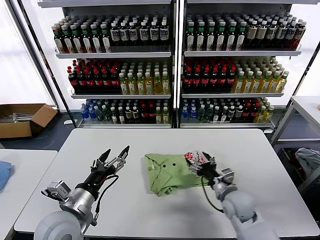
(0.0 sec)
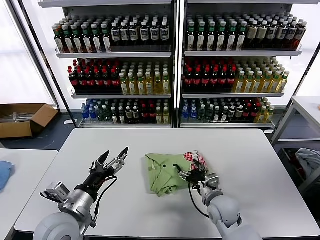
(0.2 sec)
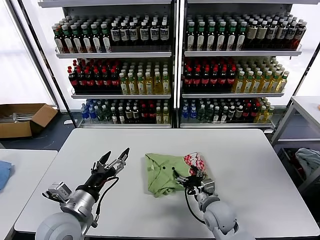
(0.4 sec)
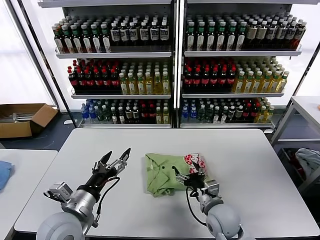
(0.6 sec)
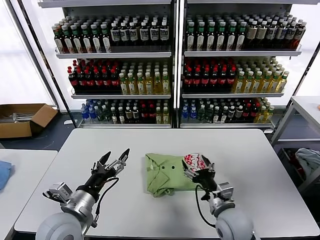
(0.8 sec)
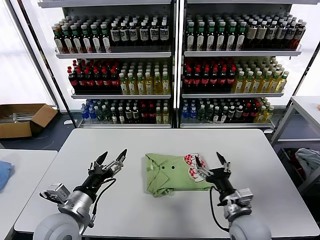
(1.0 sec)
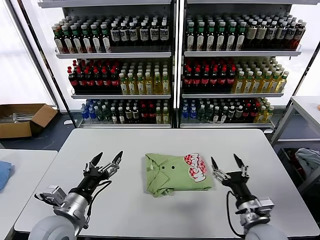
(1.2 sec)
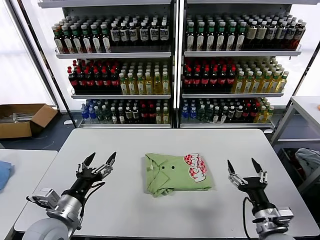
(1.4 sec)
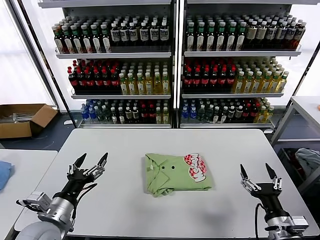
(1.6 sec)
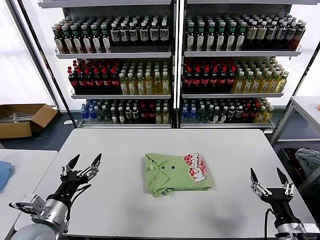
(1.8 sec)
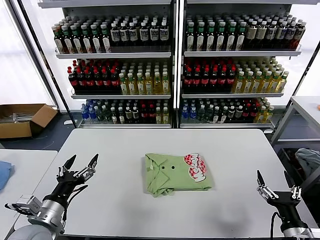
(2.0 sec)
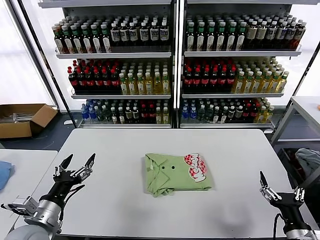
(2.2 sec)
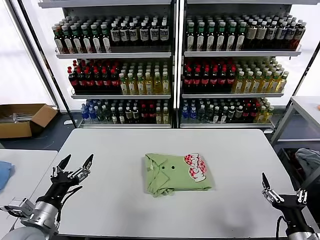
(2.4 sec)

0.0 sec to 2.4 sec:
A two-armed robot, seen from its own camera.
Task of the whole recording: fold and organize the clothes.
0.0 sec to 1.2 sec: The right gripper heads backward, covering about 10 cm.
1.2 sec to 2.4 sec: The right gripper travels to the right and backward by some 15 cm; the left gripper is displaced to the left by approximately 5 cm.

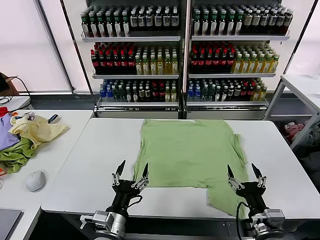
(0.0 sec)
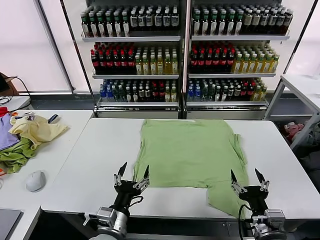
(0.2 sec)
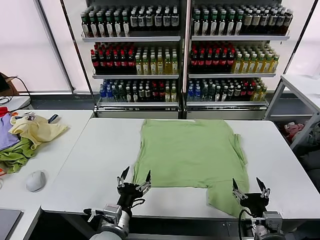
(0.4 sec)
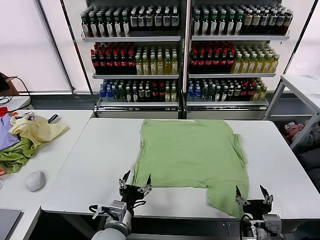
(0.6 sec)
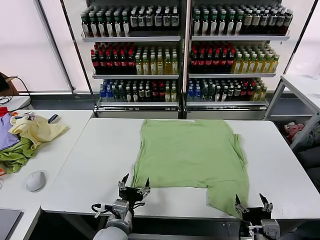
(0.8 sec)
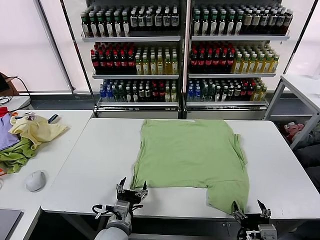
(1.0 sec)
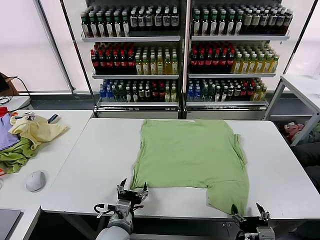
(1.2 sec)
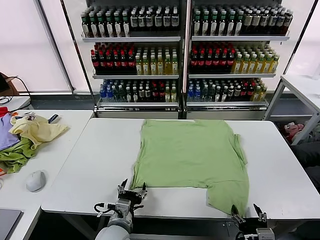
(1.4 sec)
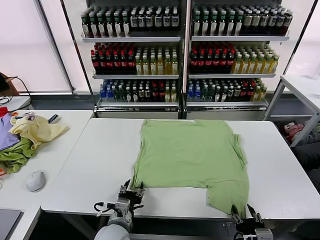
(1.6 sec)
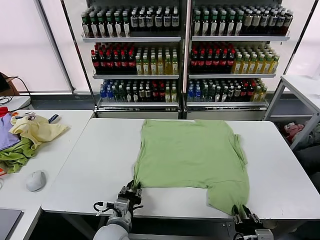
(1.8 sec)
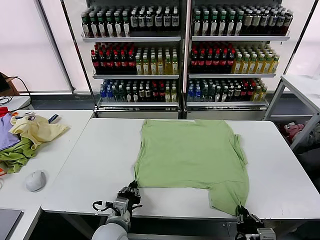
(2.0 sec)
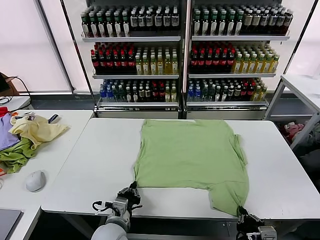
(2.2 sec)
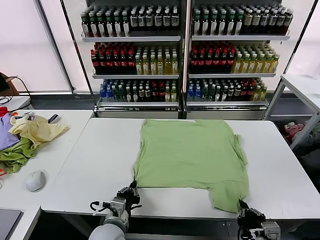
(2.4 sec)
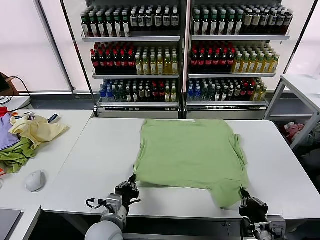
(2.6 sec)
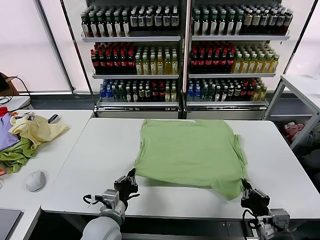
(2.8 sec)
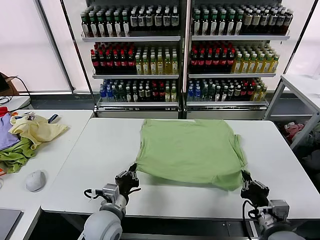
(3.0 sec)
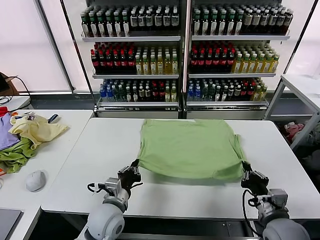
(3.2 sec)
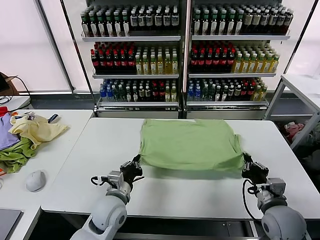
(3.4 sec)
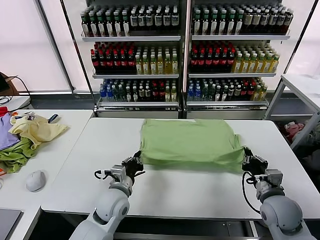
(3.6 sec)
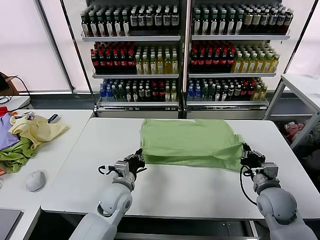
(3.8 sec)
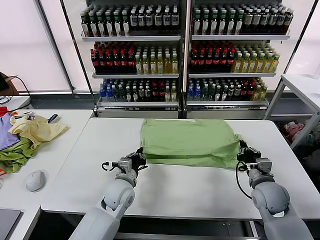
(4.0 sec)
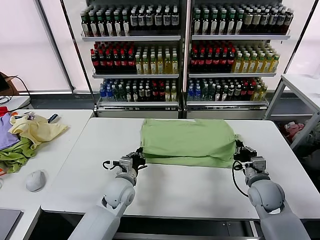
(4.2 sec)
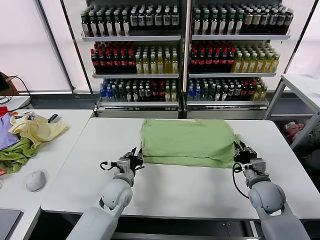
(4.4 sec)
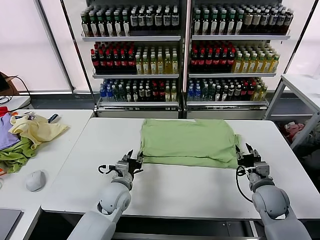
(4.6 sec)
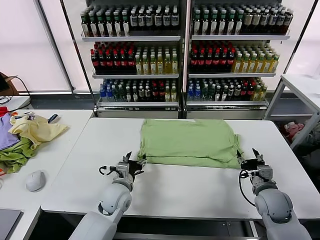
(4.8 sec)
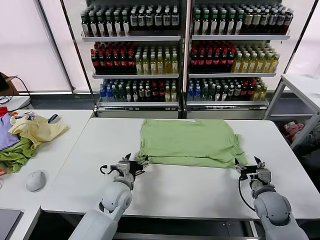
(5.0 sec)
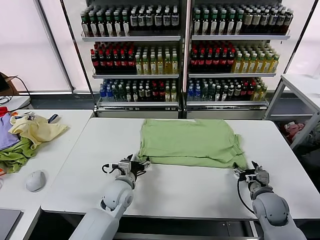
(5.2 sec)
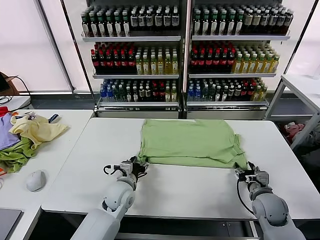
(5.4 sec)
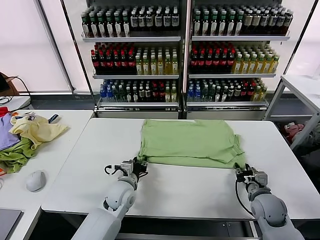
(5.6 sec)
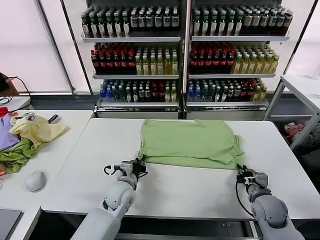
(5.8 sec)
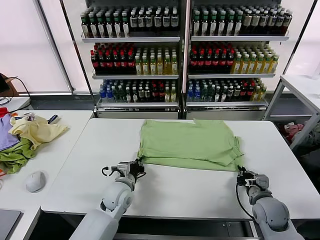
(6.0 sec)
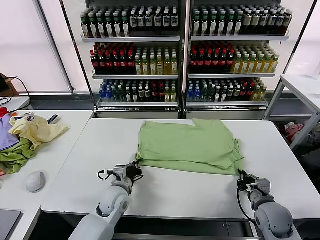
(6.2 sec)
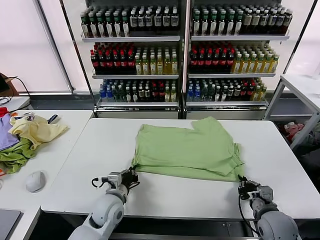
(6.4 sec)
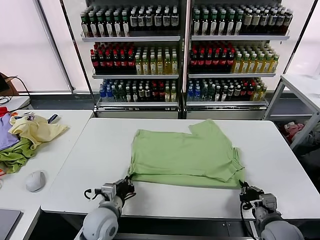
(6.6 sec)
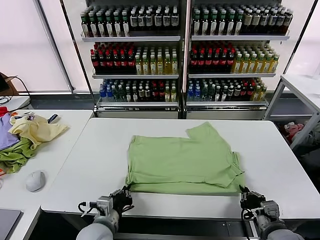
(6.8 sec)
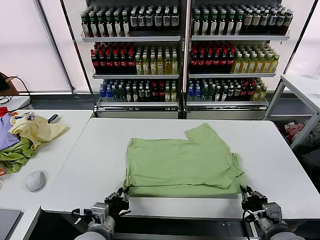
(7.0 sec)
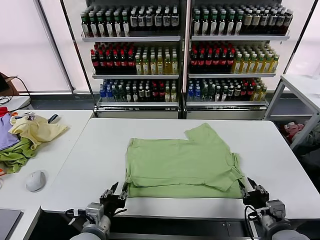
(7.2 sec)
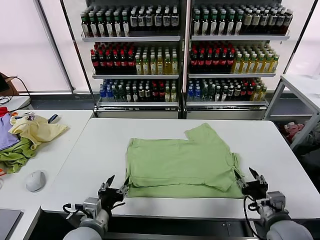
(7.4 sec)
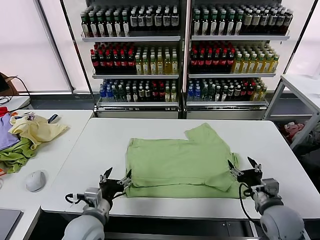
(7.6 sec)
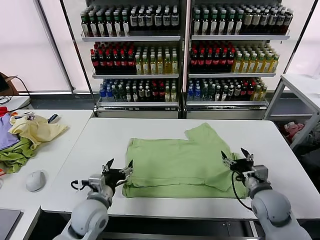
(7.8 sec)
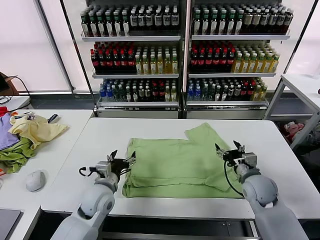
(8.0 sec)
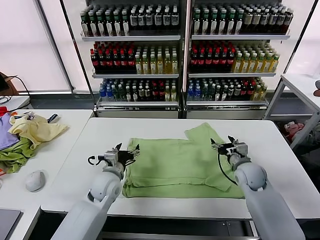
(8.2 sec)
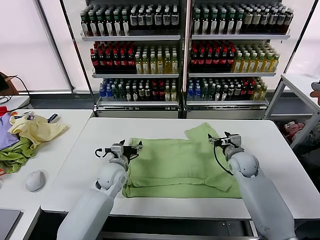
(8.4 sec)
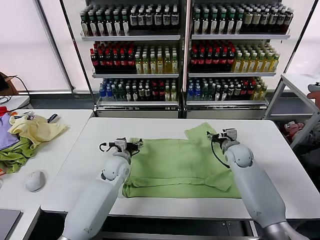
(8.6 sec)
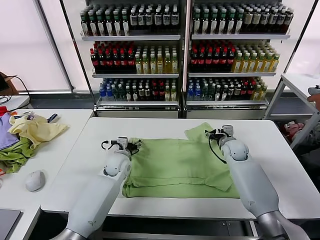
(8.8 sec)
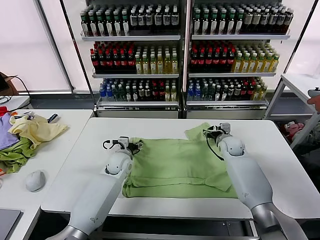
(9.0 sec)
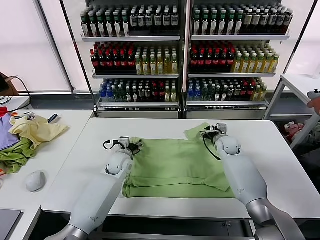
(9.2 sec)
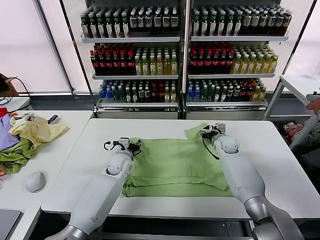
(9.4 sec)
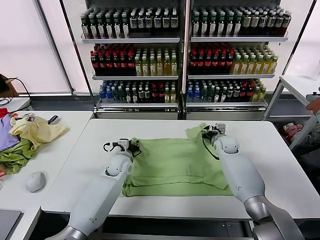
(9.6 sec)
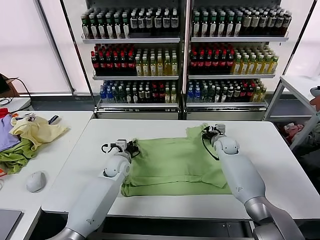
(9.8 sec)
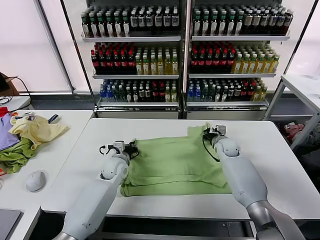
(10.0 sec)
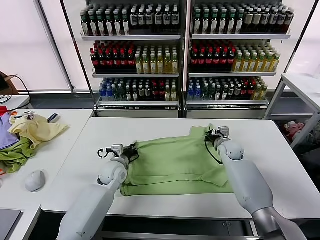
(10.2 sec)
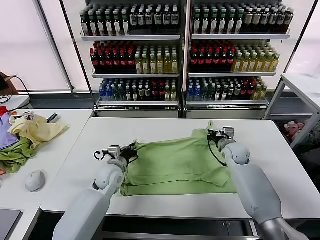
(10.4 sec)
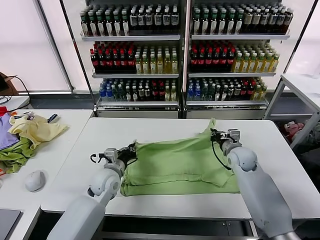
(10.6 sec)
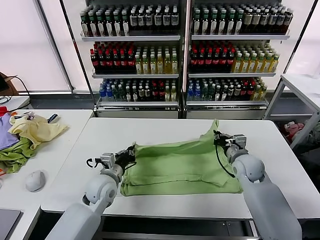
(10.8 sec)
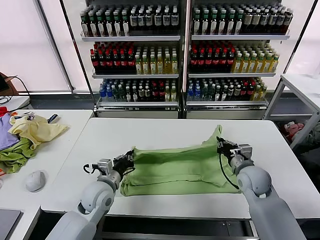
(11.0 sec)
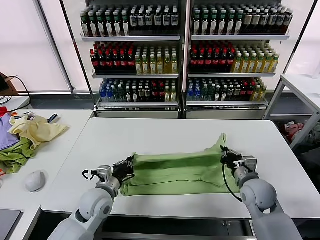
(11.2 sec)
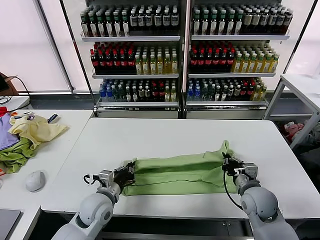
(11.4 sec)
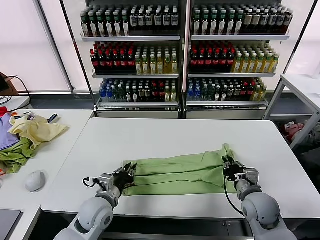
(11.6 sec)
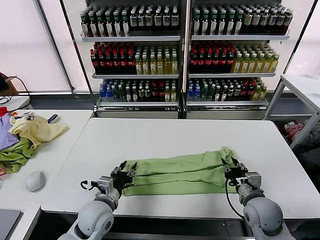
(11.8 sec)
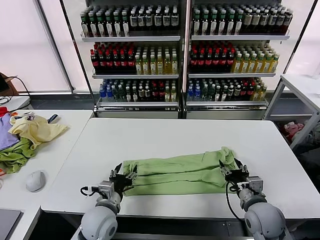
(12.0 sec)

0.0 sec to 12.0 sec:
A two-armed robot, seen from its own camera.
Task of the whole recording: fold and organize the clothes.
Step, 0.0 sec to 2.0 sec: use both grippers simultaneously to clamp the lower edge of the clothing fabric.
Step, 2.2 sec to 4.4 sec: use both grippers to drag the lower edge of the fabric forward and fold it over the upper edge.
Step, 4.6 sec to 7.0 sec: Drag the clothes downward with both gripper.
Step, 7.2 sec to 10.0 sec: use both grippers simultaneously to clamp the upper edge of the clothing fabric.
Step, 10.4 sec to 11.6 sec: use both grippers to drag the upper edge of the fabric backward and fold it over the lower edge.
1.6 sec to 3.0 sec: The right gripper goes some 10 cm forward and upward. The left gripper shifts by about 5 cm, and closes.
3.0 sec to 4.4 sec: The two grippers go some 10 cm forward. The right gripper opens. The left gripper opens its fingers.
4.4 sec to 6.0 sec: The left gripper opens and closes again. The right gripper changes place by about 5 cm, and closes.
6.0 sec to 7.6 sec: The left gripper is displaced backward and upward by some 15 cm, and opens its fingers; the right gripper travels upward by some 5 cm, reaches some 10 cm backward, then returns, and opens its fingers.
7.6 sec to 9.0 sec: Both grippers move forward, roughly 25 cm.
9.0 sec to 10.4 sec: Both grippers travel together backward, about 5 cm. The left gripper closes. The right gripper closes its fingers.
10.4 sec to 12.0 sec: Both grippers move backward, roughly 20 cm. The left gripper opens its fingers. The right gripper opens up.

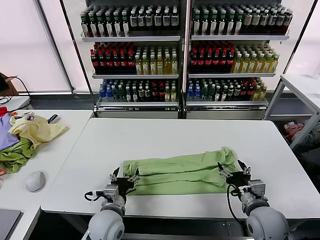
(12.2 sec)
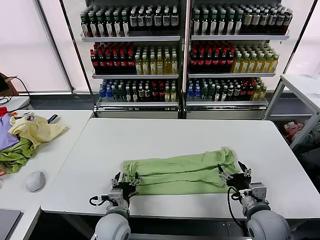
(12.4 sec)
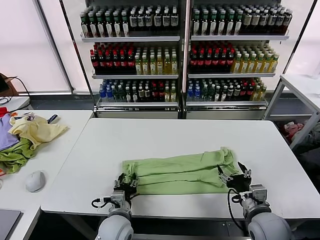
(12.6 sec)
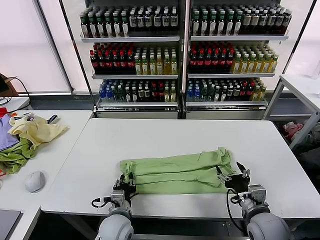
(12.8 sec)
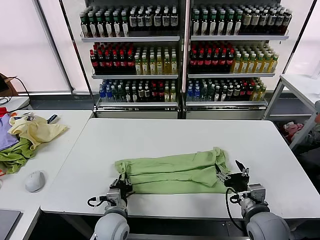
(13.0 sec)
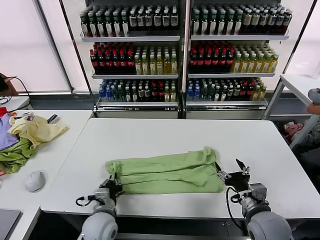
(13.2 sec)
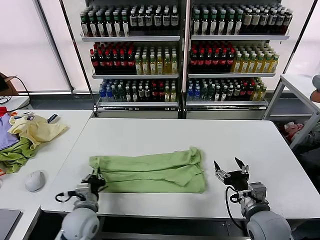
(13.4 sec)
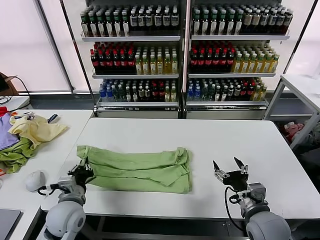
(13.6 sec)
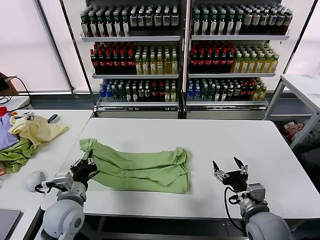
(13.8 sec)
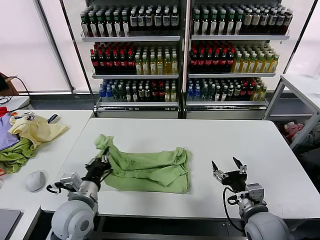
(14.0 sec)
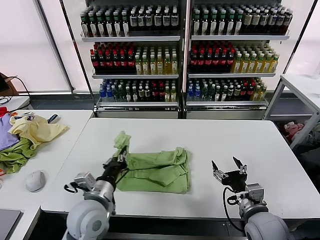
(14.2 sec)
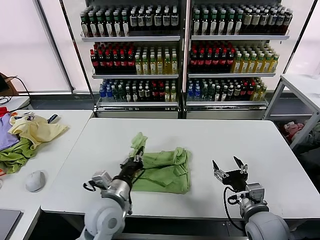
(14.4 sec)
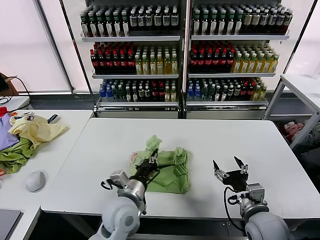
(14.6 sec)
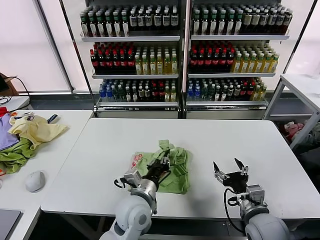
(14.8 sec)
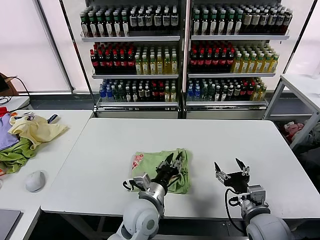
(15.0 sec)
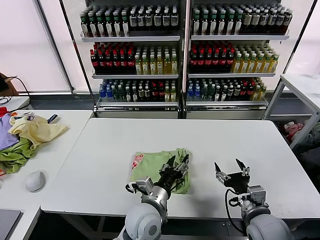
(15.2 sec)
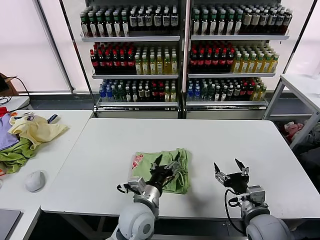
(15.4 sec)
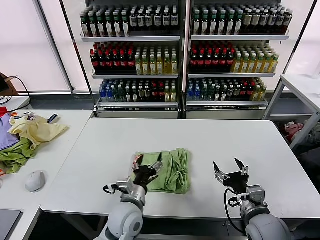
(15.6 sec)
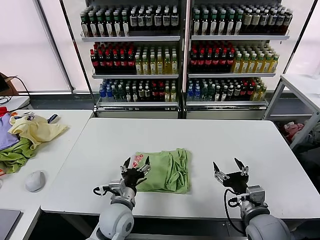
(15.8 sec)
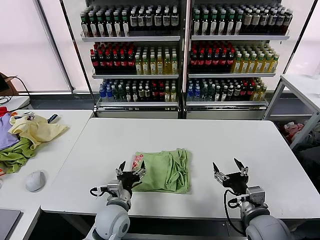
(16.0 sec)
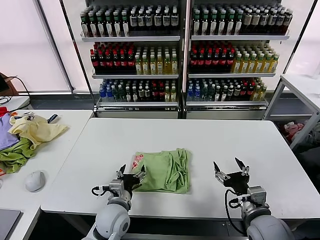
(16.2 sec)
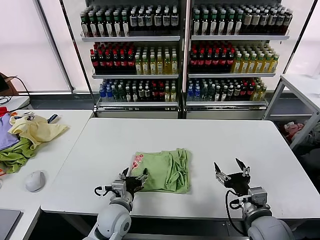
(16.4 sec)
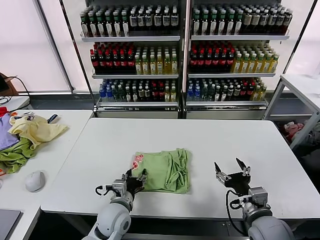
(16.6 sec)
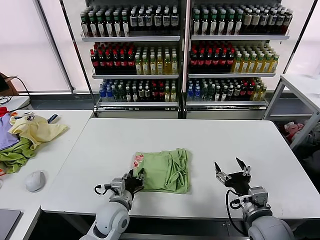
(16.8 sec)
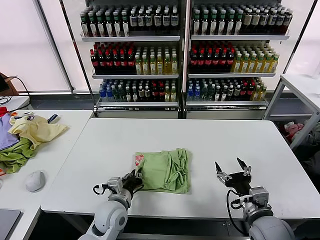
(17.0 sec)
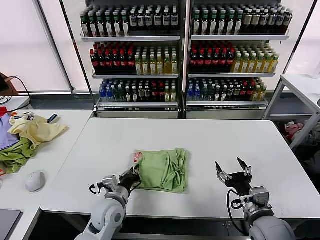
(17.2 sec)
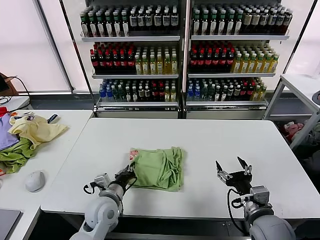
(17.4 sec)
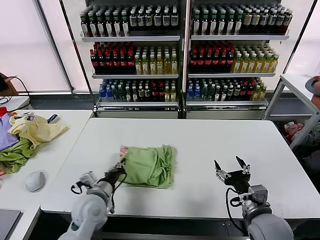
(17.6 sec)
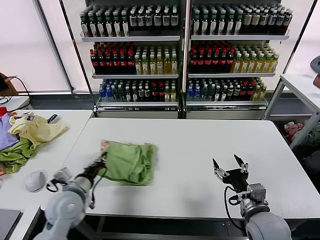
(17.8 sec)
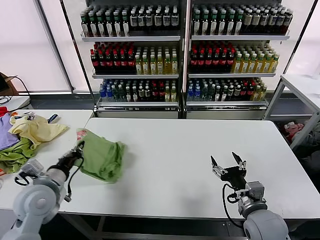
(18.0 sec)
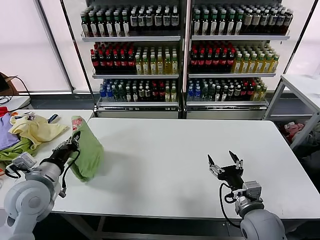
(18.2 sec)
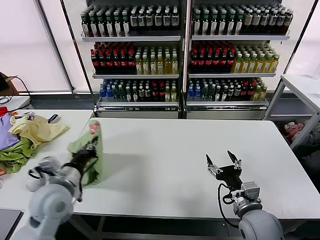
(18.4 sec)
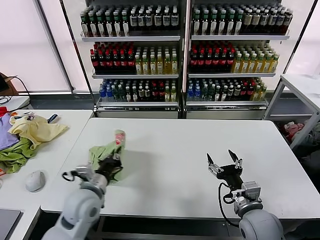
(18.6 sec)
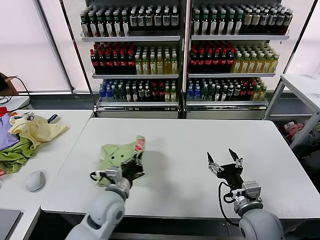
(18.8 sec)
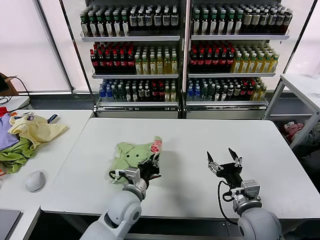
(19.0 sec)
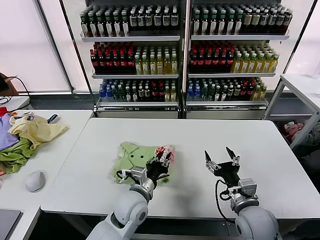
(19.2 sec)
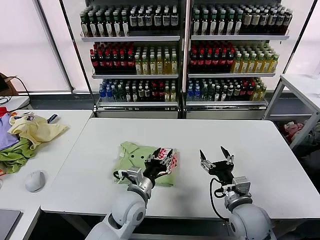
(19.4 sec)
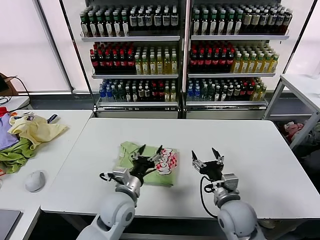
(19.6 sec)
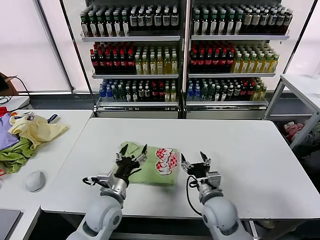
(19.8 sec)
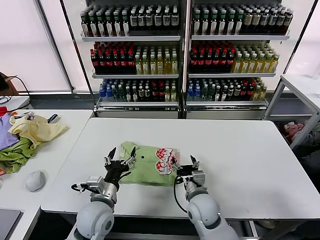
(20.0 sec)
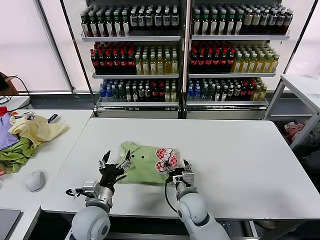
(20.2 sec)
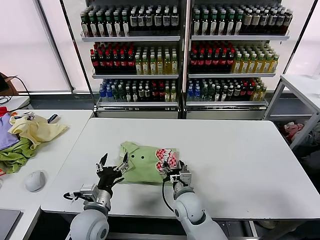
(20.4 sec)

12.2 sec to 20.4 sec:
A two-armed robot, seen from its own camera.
Task of the whole recording: fold and organize the clothes.
Step, 12.2 sec to 13.0 sec: use the left gripper to clamp the left edge of the fabric.
Step, 13.2 sec to 15.0 sec: use the left gripper to drag the left edge of the fabric to the left and folds it over the right edge.
Step, 15.2 sec to 19.2 sec: Flip the folded clothes over with left gripper.
12.2 sec to 13.8 sec: The left gripper shifts approximately 10 cm to the left and upward, and closes up.
13.8 sec to 15.4 sec: The left gripper heads to the right, covering approximately 20 cm, and opens up.
15.4 sec to 17.2 sec: The left gripper moves to the left and downward, some 10 cm, and closes up.
17.2 sec to 18.8 sec: The left gripper is displaced upward by some 5 cm, and travels to the left and back again, some 15 cm each way.
18.8 sec to 20.4 sec: The left gripper goes to the right and returns, some 10 cm each way, and opens; the right gripper goes some 20 cm to the left, forward and downward.
